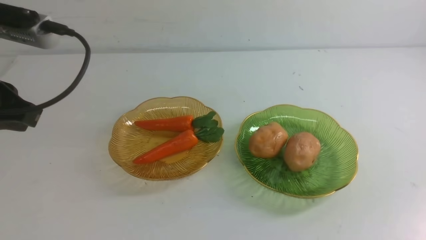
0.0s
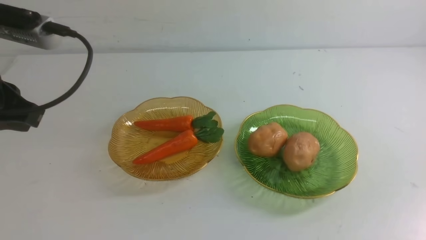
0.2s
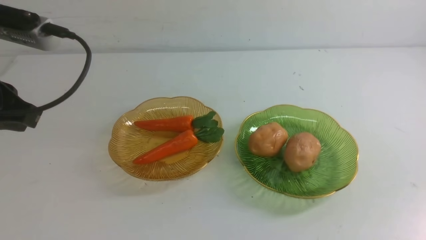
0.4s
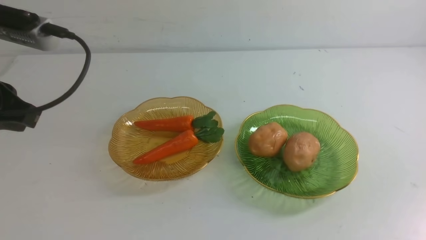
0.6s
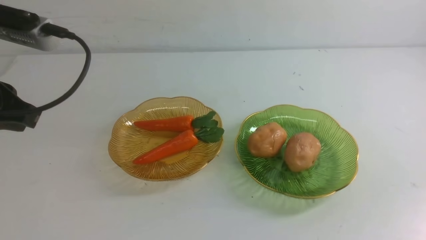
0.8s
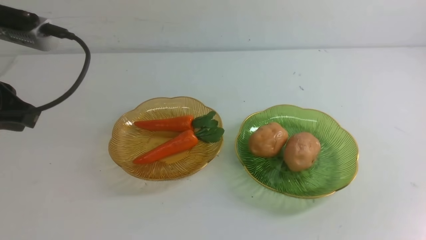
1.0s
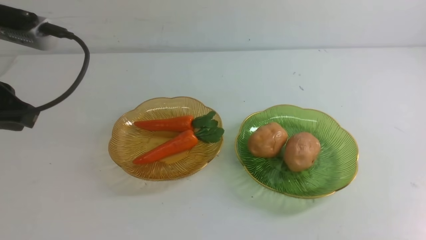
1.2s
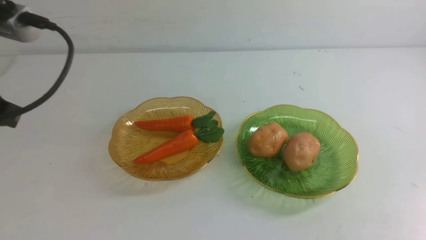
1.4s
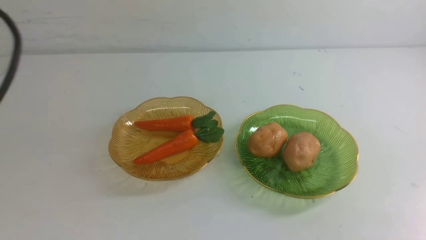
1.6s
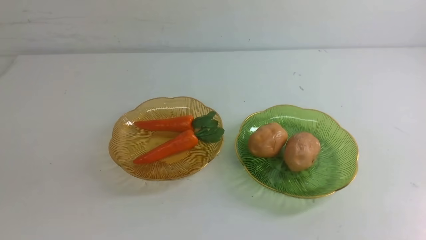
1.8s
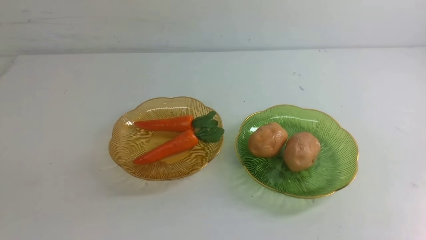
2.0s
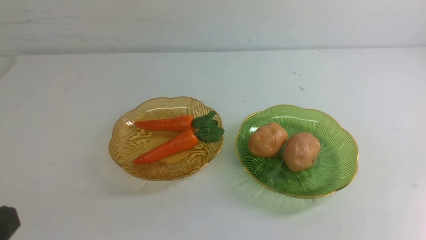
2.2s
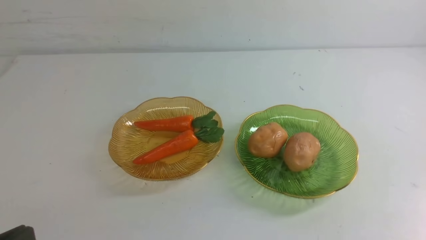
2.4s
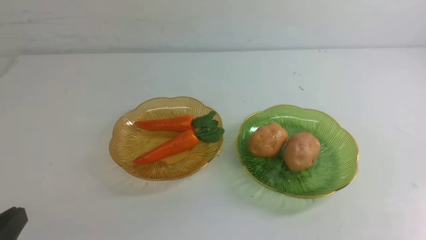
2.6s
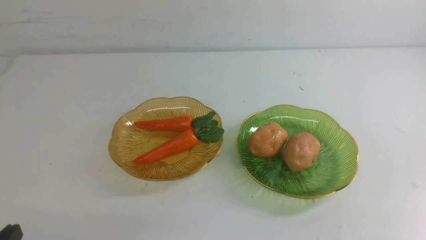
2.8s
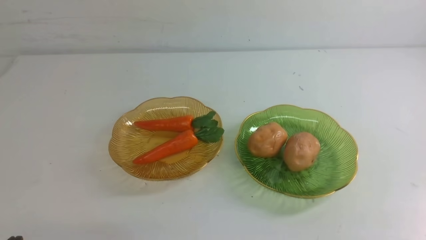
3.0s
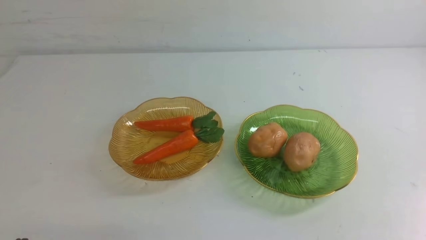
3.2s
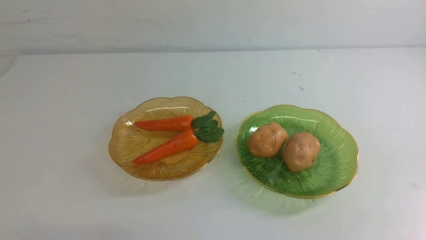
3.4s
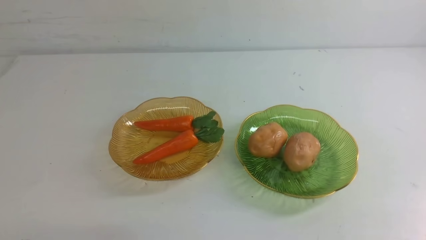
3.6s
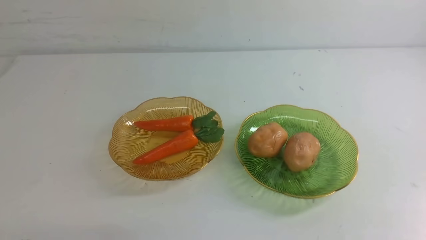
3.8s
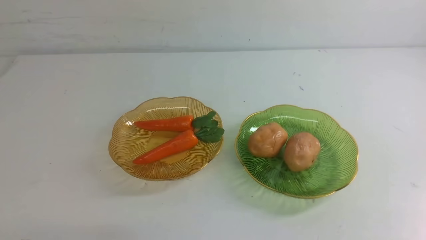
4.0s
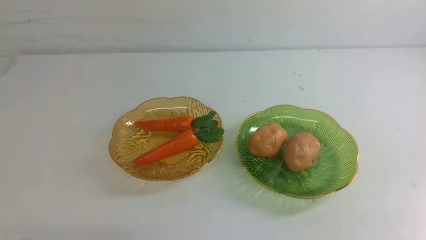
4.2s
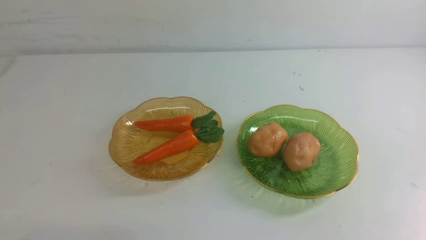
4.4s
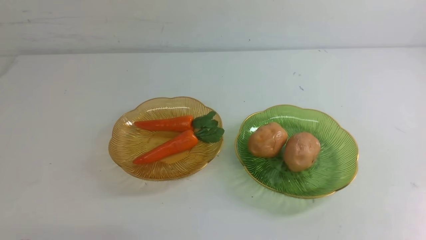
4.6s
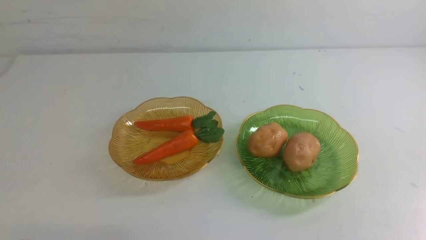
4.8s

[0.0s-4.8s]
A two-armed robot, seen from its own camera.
0.0s to 1.6s: The left gripper heads backward, covering roughly 10 cm.
1.6s to 3.2s: The left gripper heads downward, covering approximately 25 cm.
3.2s to 4.8s: The two grippers keep their place.

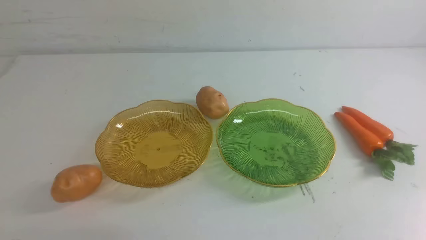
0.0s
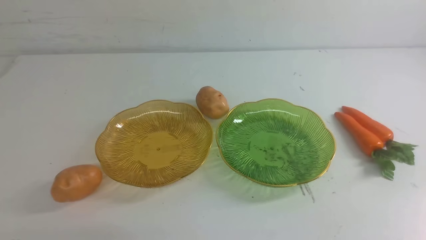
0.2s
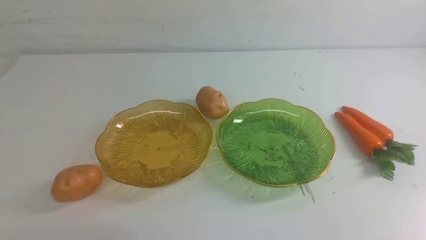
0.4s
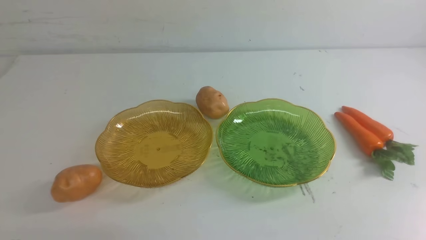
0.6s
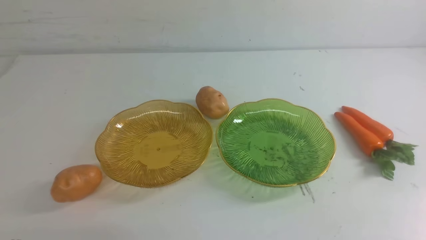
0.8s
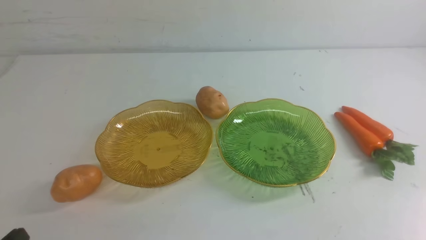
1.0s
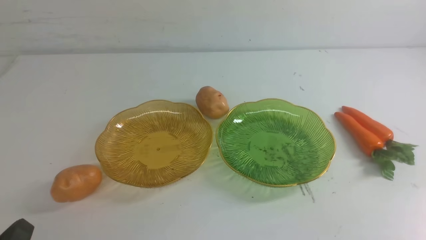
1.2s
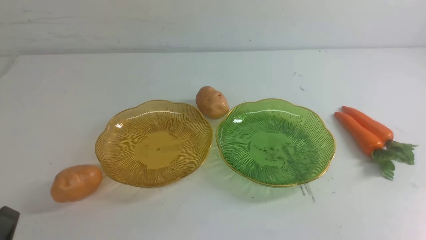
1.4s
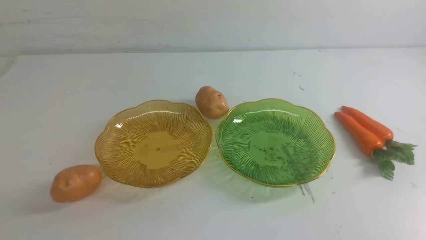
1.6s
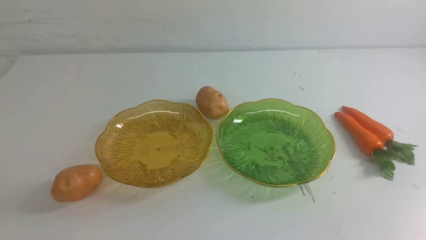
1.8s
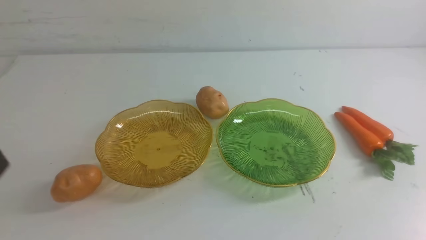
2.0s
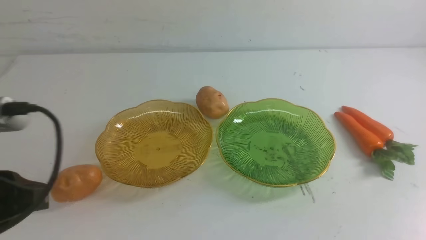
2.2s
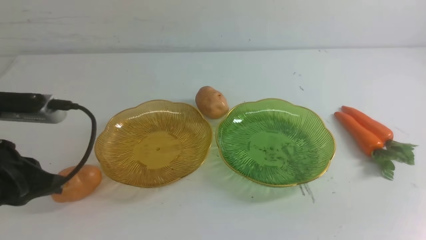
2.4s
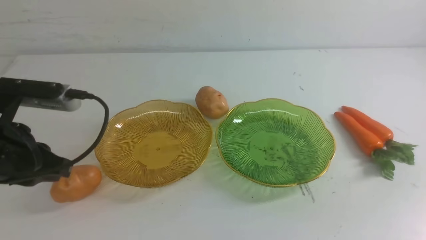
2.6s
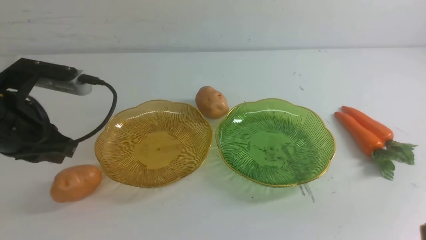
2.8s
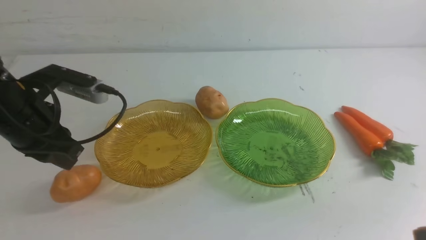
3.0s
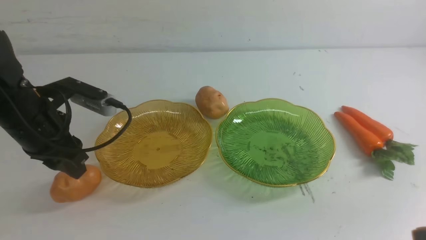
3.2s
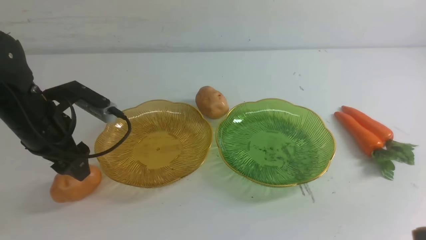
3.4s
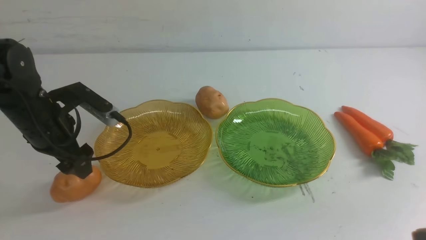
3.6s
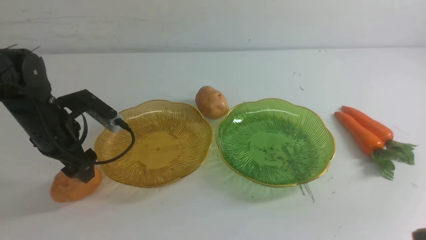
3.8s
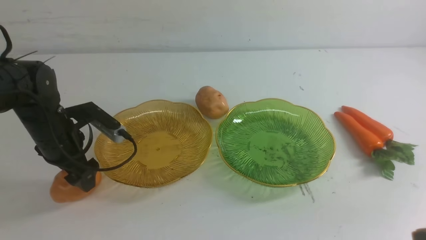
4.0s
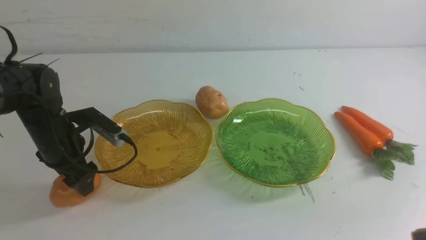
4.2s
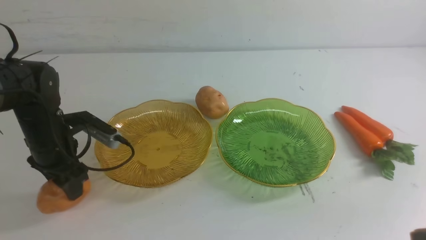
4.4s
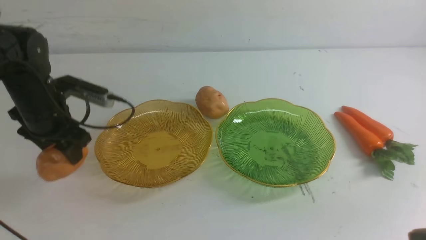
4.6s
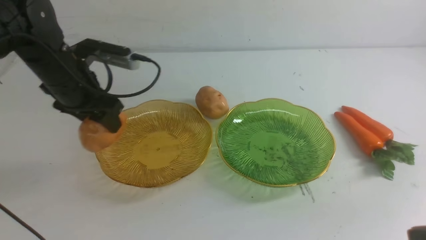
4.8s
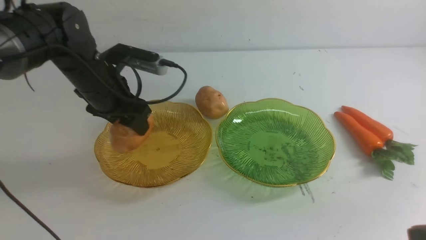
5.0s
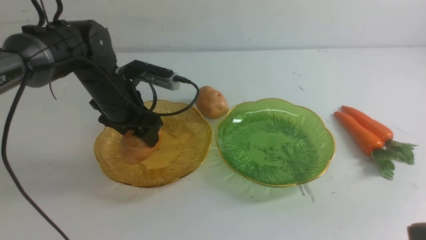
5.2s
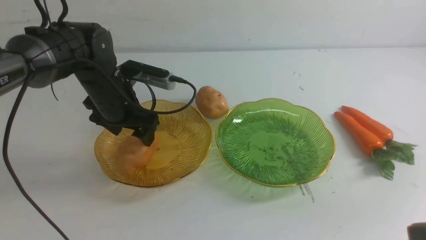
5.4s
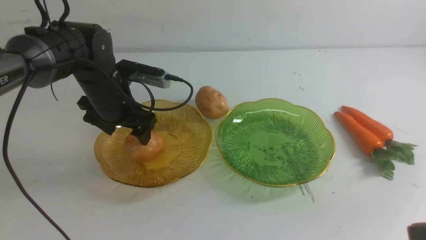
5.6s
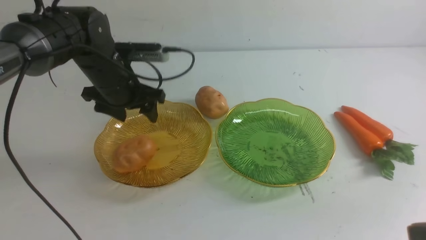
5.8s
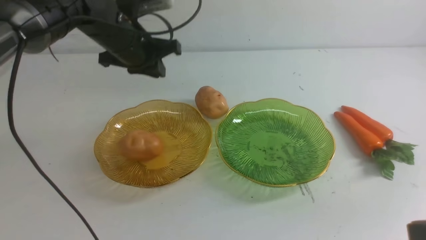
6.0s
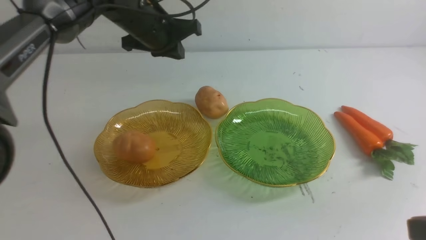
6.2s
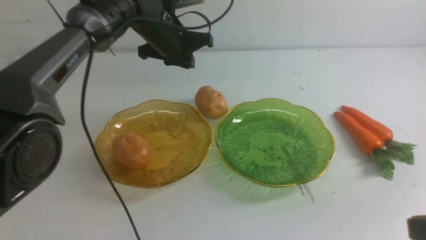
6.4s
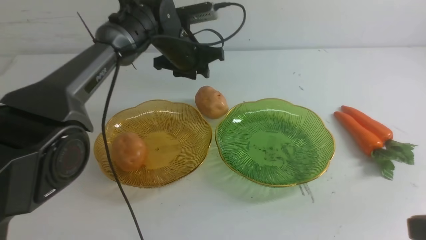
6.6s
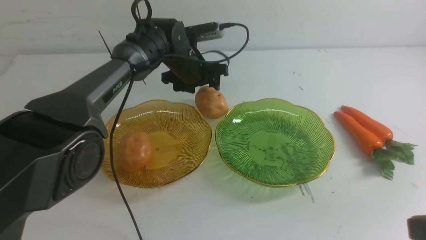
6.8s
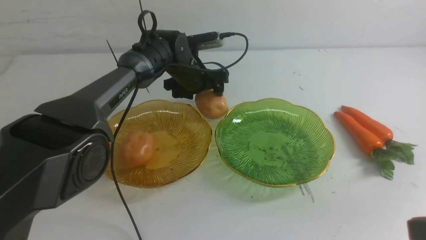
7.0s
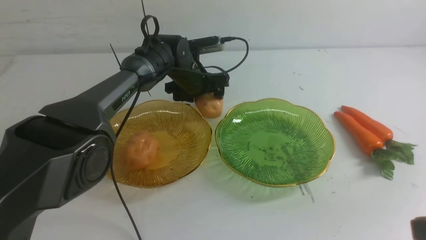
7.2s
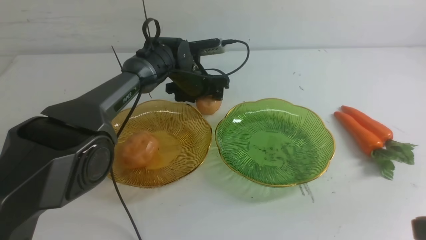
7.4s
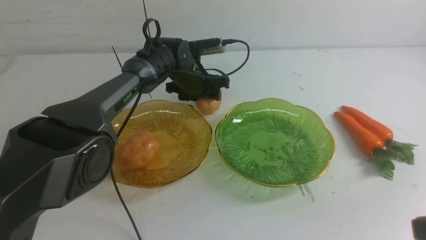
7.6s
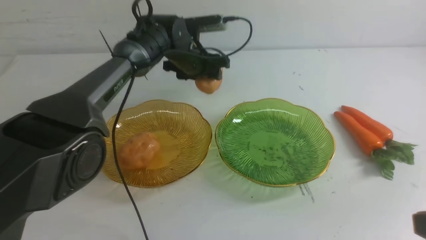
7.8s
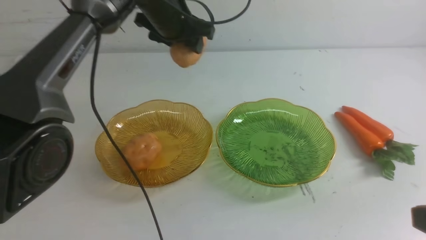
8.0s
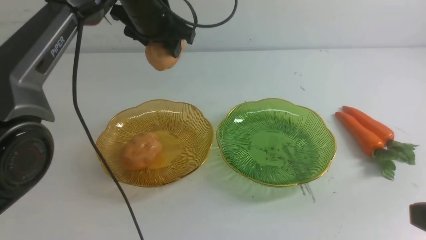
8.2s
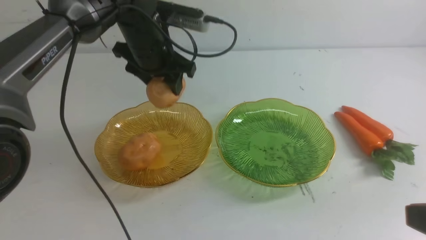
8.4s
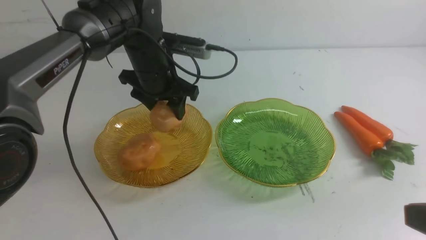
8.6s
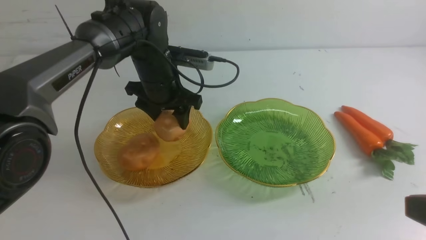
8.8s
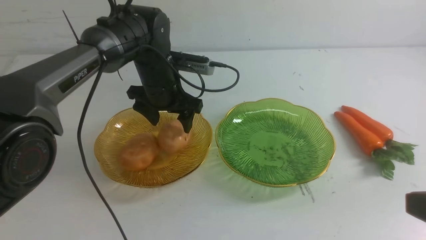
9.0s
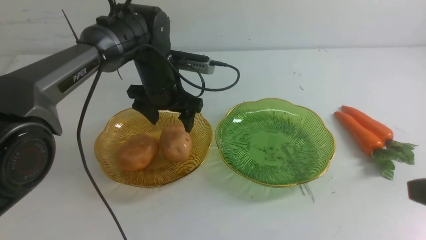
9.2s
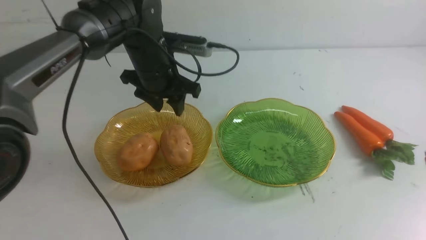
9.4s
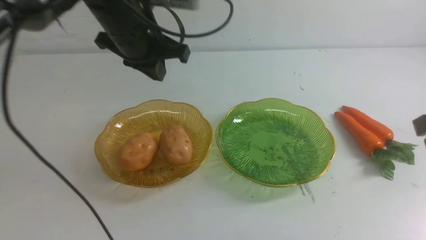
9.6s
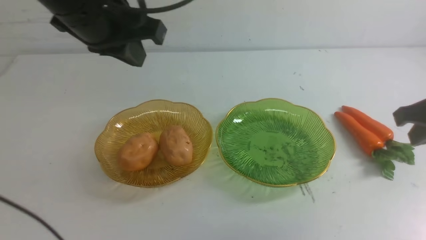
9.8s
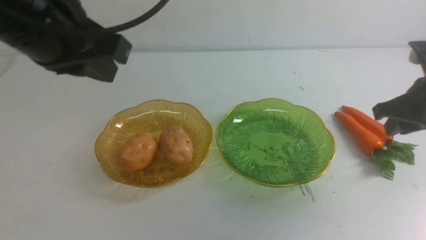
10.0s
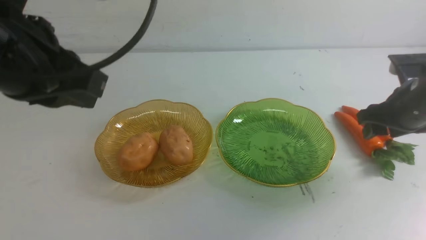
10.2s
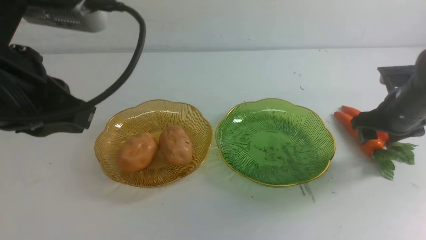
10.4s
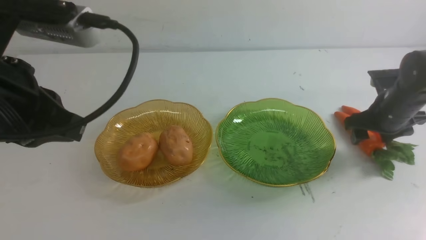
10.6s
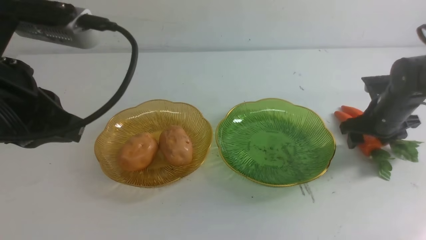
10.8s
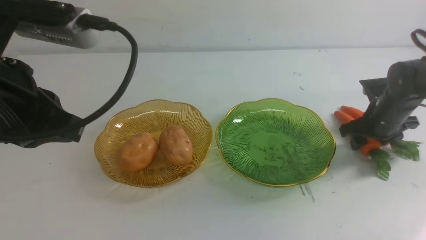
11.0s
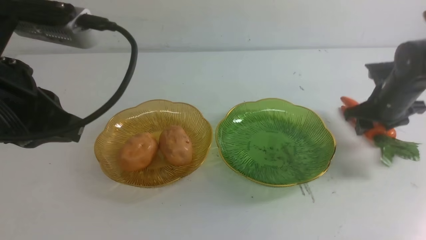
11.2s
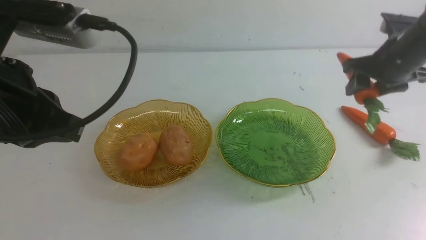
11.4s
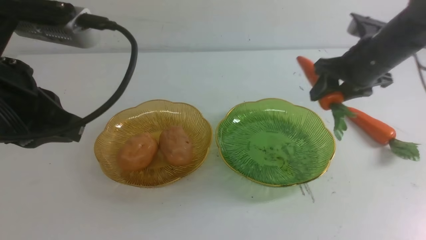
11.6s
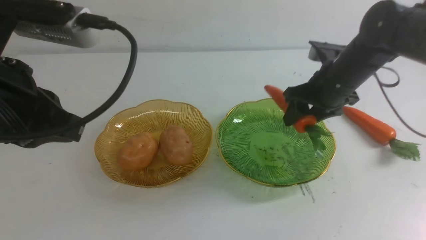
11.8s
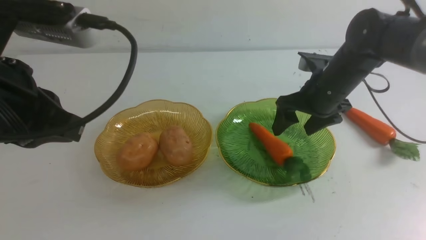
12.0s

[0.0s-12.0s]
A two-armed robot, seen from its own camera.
Step, 0.0s to 9.4s: Grab a potato with your left arm and put it on the left plate.
1.6s to 3.0s: The left gripper is displaced forward by about 25 cm, and opens.
3.0s to 4.4s: The left gripper heads forward and to the right, covering roughly 10 cm.
4.4s to 6.0s: The left gripper travels forward and to the right by some 15 cm, and closes its fingers.
6.0s to 7.6s: The left gripper moves about 10 cm downward and comes back, and opens its fingers.
7.6s to 9.0s: The right gripper shifts about 5 cm forward. Meanwhile the left gripper heads backward, covering approximately 5 cm, and travels upward and back again, roughly 5 cm each way.
9.0s to 10.4s: The right gripper is displaced forward and downward by about 30 cm, and opens its fingers. The left gripper shifts about 30 cm backward and upward, and closes up.
10.4s to 12.0s: The right gripper is displaced to the left and upward by about 15 cm.
